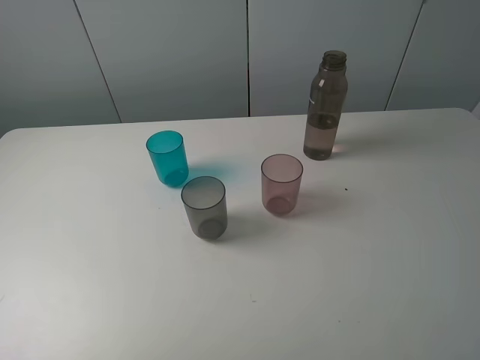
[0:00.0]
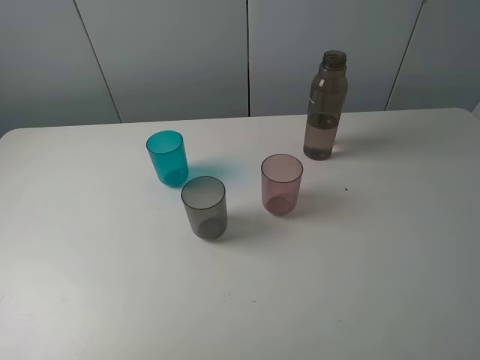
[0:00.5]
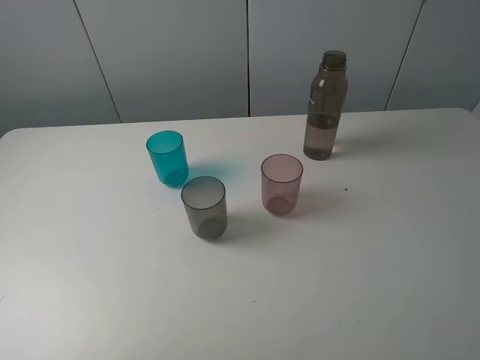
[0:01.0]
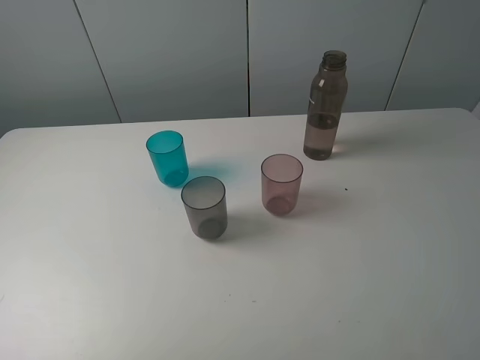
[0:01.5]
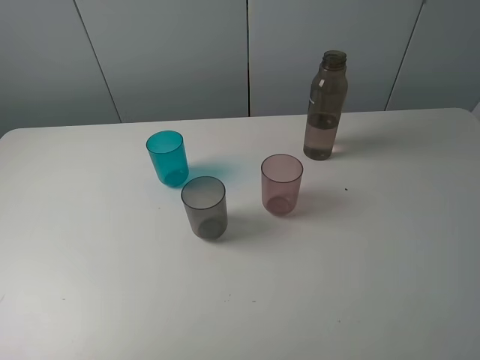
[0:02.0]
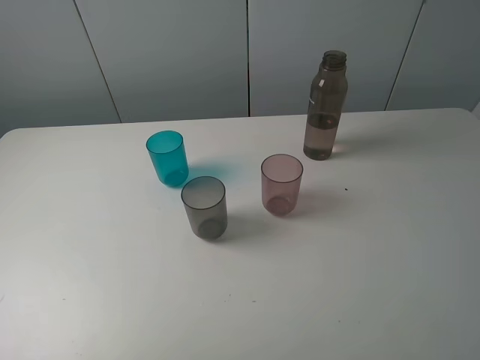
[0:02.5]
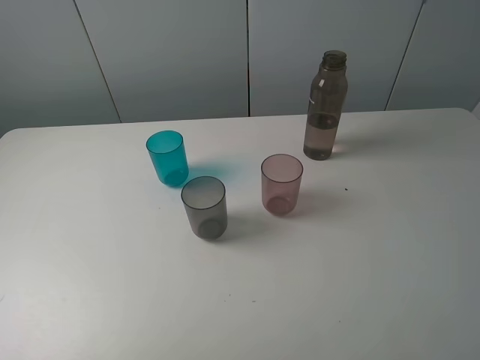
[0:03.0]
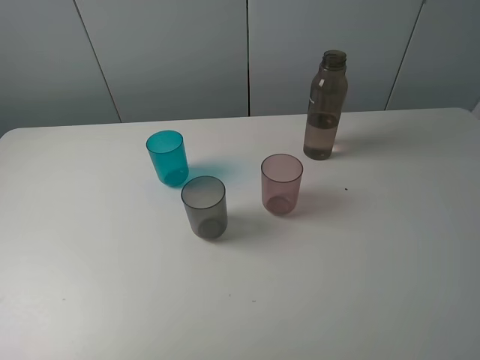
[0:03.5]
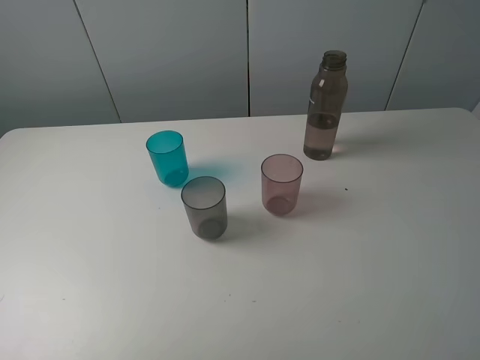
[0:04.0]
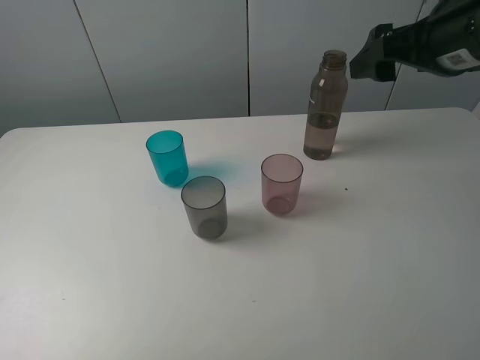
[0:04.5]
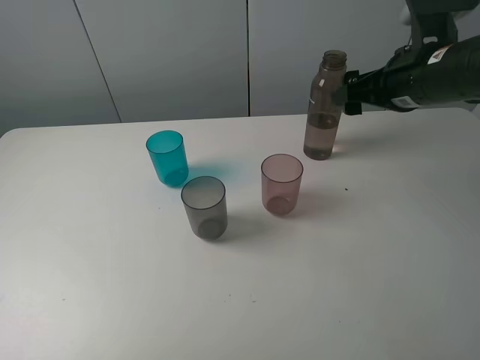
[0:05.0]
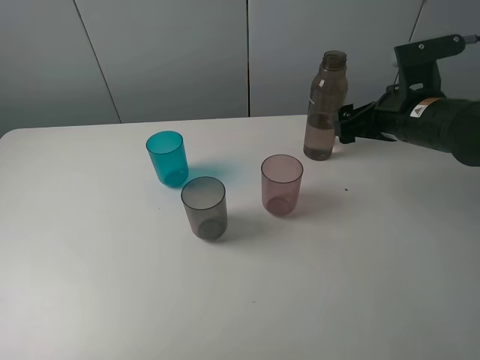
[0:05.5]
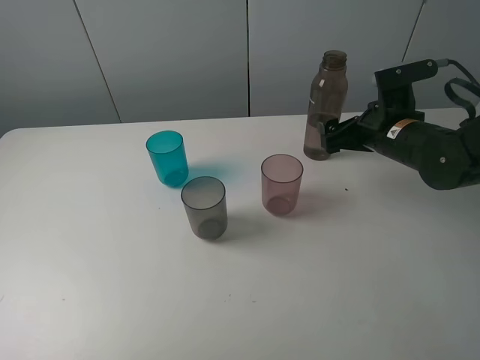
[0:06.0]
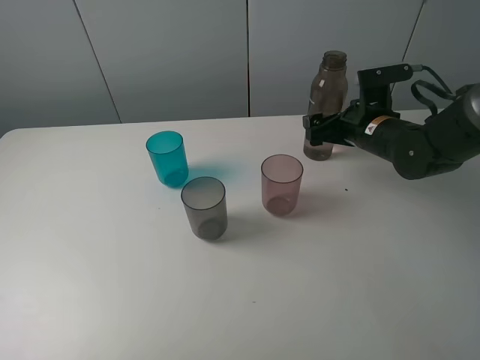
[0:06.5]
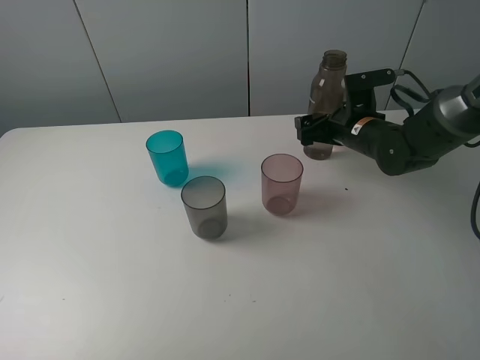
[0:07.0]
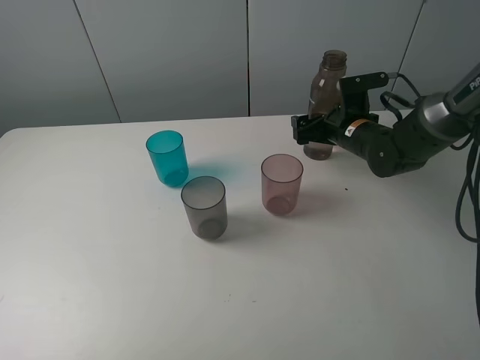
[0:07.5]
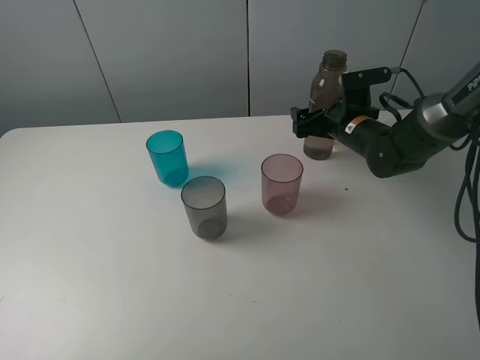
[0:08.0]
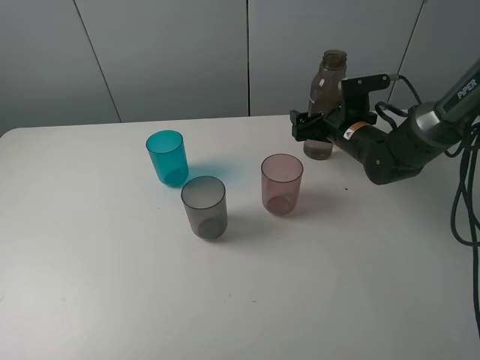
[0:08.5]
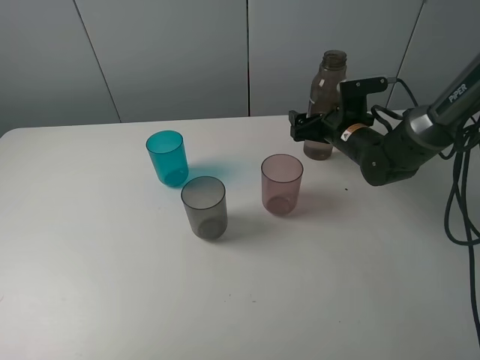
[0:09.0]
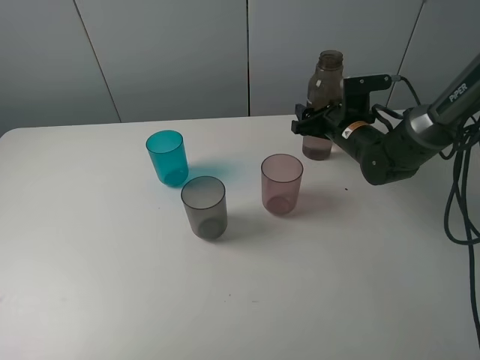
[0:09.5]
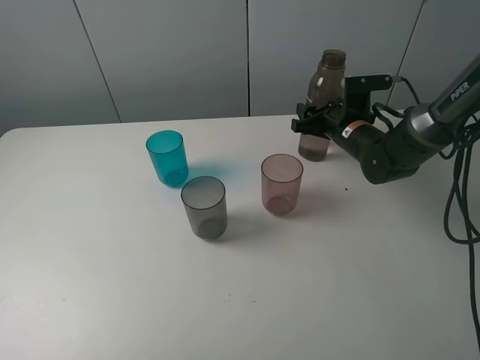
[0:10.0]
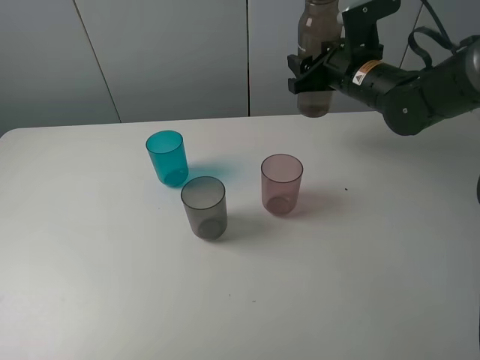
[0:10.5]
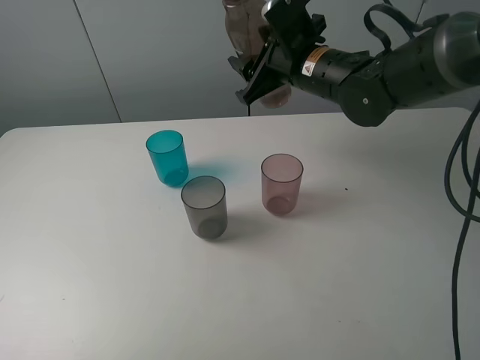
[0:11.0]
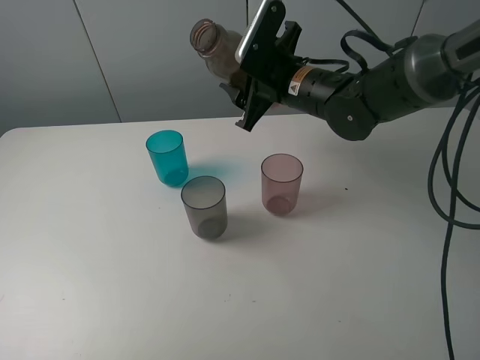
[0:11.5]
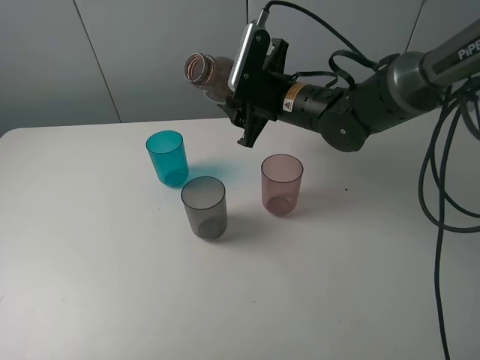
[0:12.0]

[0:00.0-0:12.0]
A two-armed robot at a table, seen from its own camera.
Task of the whole recording: pick up the bottle filled with water and pour water into the middle cup of the three cups.
Step, 0:00.0 to 0:09.5: Grasp the brown bottle with the right gripper.
0:00.0 to 0:02.0: Both grippers stay about where they are.
0:04.0 to 0:06.0: The right gripper shifts some 30 cm downward and forward.
0:06.0 to 0:08.0: The right gripper shifts approximately 5 cm forward.
0:08.0 to 0:10.0: The right gripper closes.
0:10.0 to 0:12.0: The right gripper moves to the left and upward, roughly 15 cm.

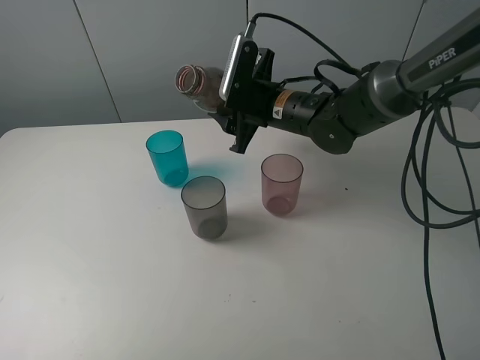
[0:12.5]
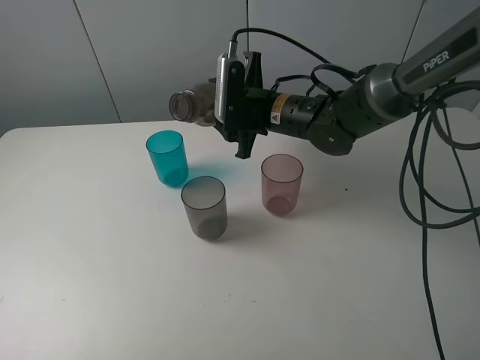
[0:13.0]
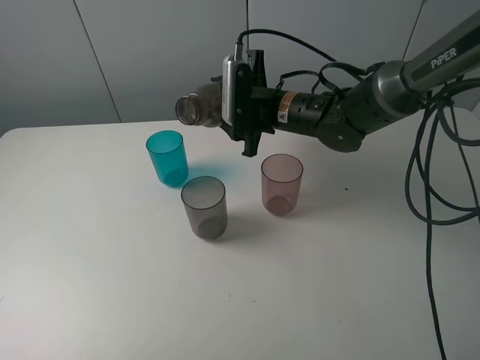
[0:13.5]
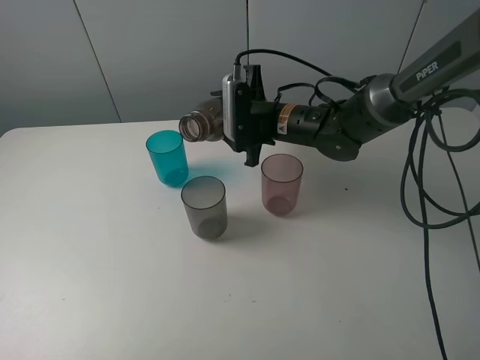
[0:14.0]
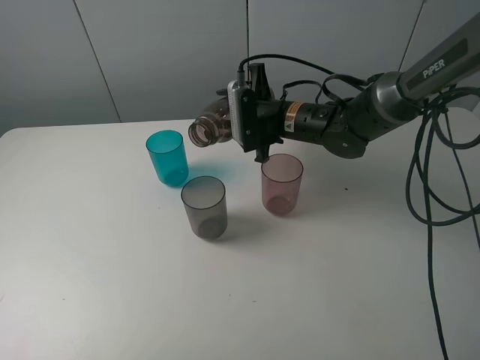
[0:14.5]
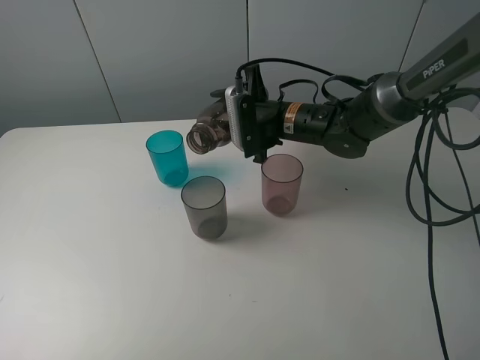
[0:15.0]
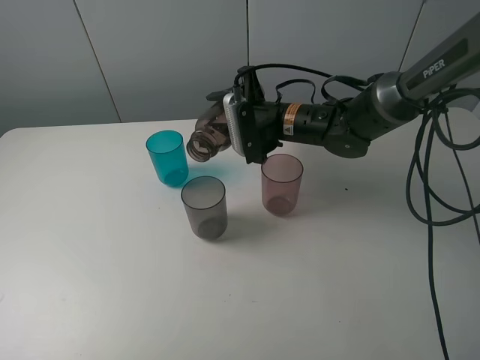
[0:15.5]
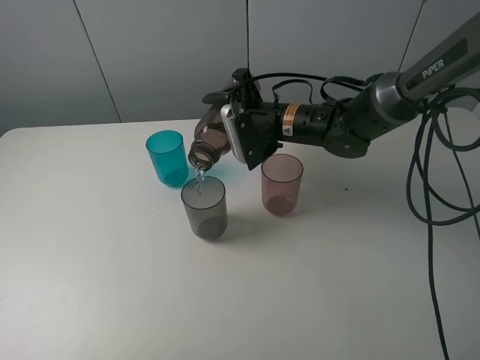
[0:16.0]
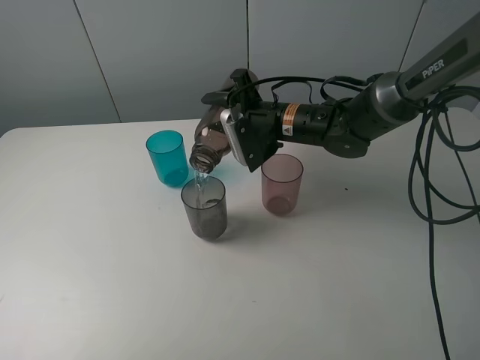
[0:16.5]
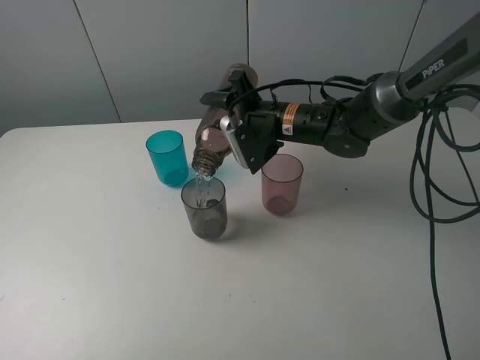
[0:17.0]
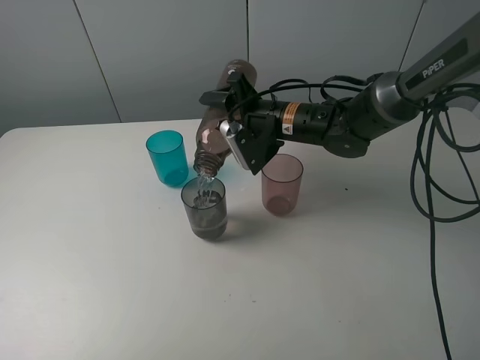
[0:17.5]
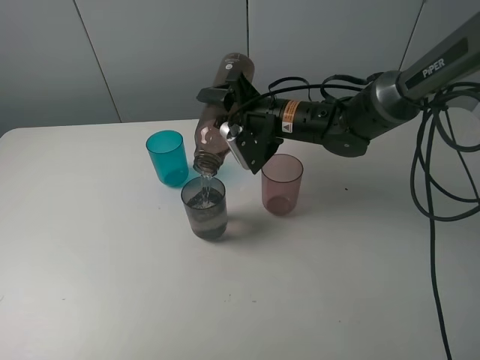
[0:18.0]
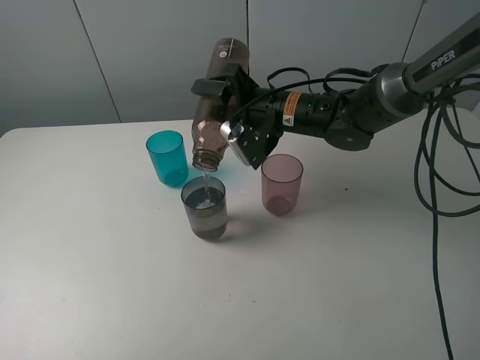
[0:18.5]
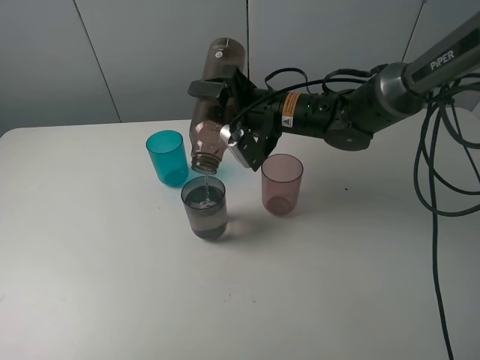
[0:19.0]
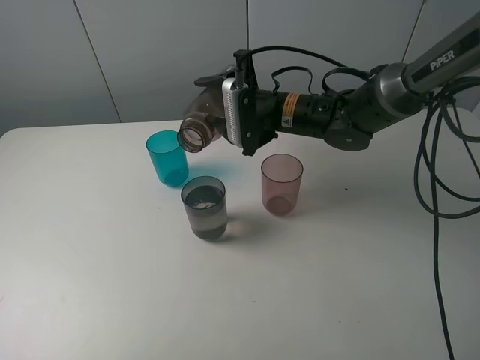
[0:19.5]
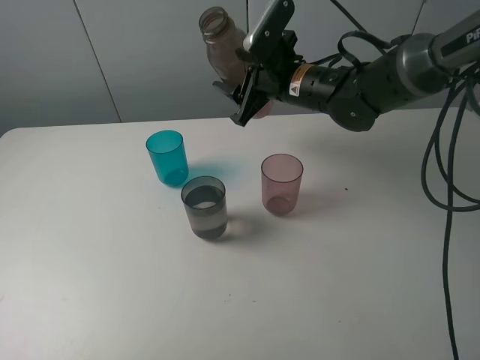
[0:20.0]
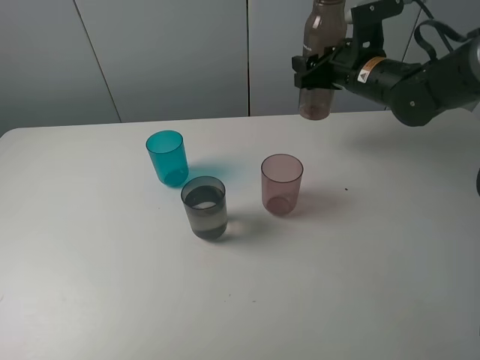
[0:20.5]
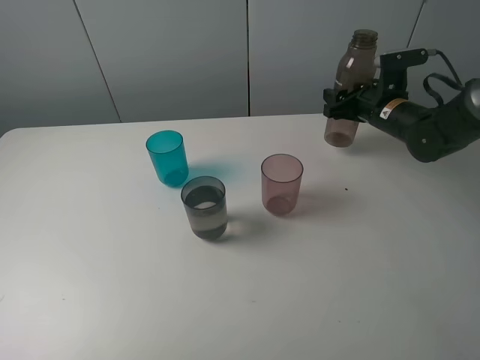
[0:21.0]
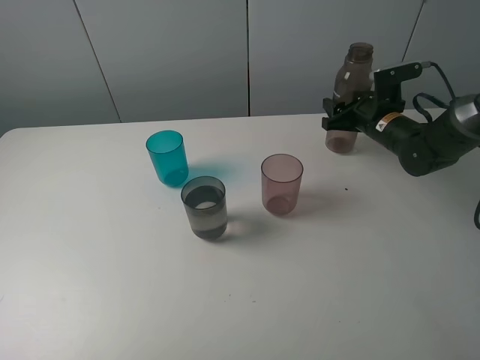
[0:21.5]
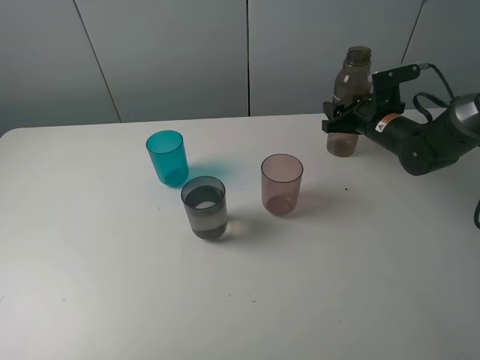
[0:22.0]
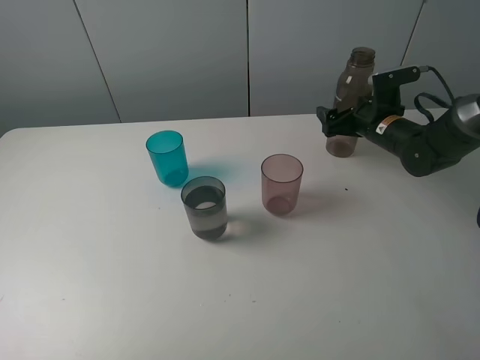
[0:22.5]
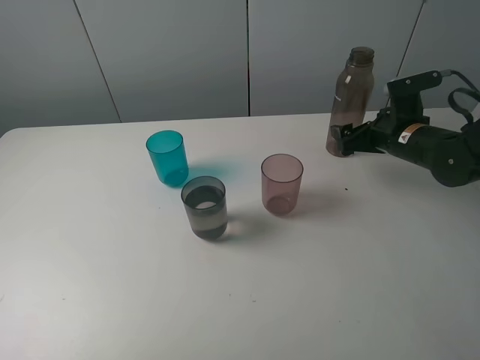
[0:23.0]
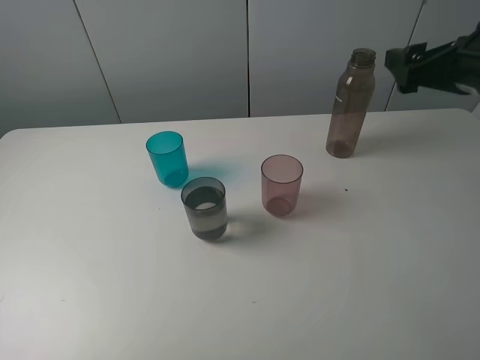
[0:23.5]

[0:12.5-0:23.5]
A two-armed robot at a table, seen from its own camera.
Task of the whole recording: pick up the bottle filled with water and pour water into the middle cup of the three cups.
Step, 0:12.5 to 0:15.5: Pour water from transparent bottle to grey cup with the right gripper.
Step, 0:16.0 to 0:23.0: Place the brown bottle with the right gripper.
0:14.5 to 0:16.0: There are only small adjustments of the grippers.
0:16.0 to 0:18.0: There are only small adjustments of the grippers.
0:18.0 to 0:20.0: The right gripper is displaced upward by roughly 5 cm.
0:20.0 to 0:21.5: The right gripper is displaced to the right and downward by about 20 cm.
0:21.5 to 0:23.5: The right gripper is displaced upward and backward by about 25 cm, and opens up.

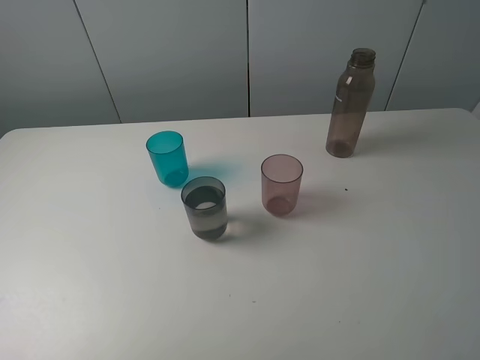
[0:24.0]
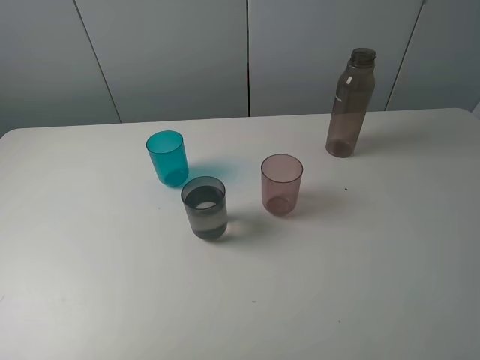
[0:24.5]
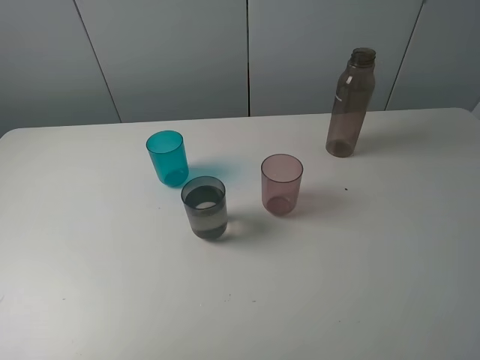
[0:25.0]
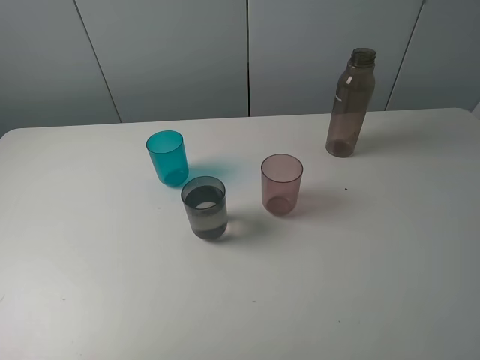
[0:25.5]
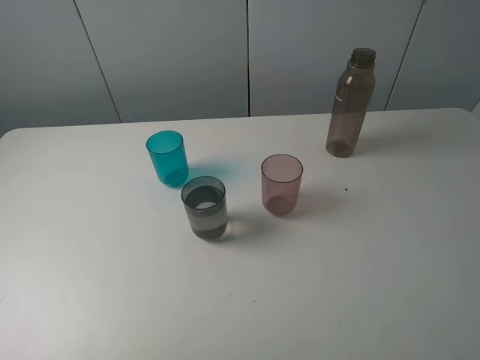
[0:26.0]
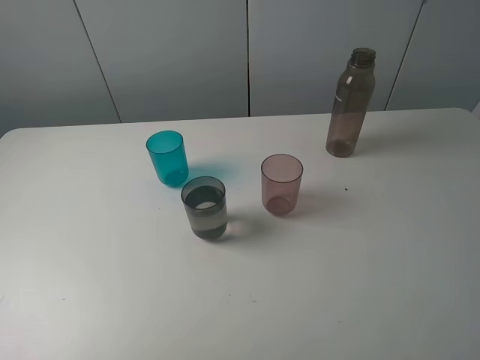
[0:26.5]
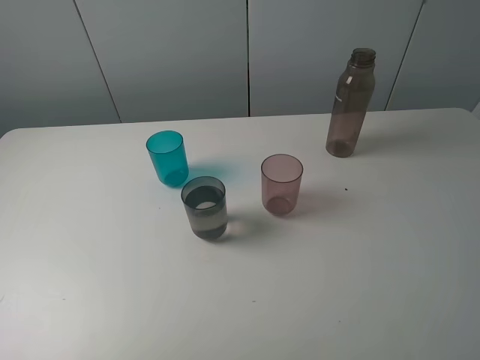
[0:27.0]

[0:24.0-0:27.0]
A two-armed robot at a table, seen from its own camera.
Task of the whole recording: pick up the bottle filled with water and pour water into the middle cup of the three cups.
0:25.5 to 0:27.0: Neither gripper changes place.
